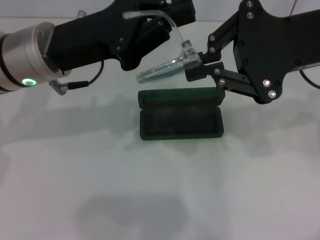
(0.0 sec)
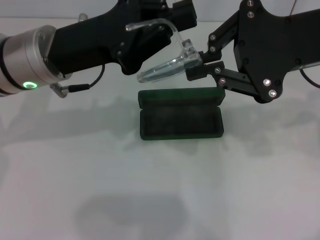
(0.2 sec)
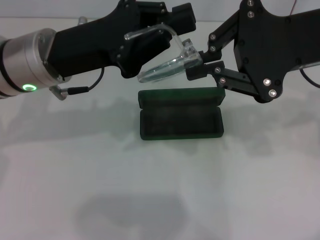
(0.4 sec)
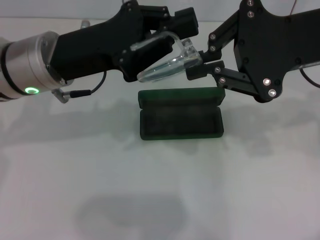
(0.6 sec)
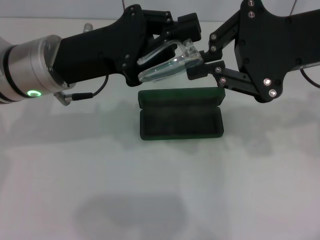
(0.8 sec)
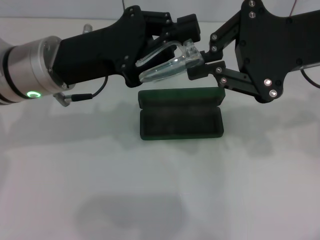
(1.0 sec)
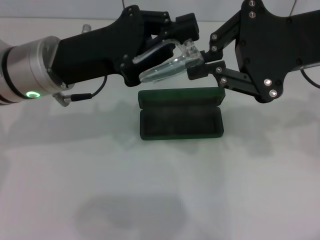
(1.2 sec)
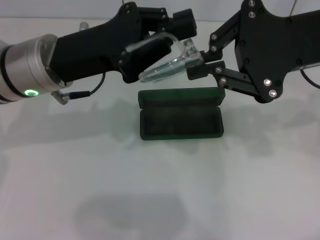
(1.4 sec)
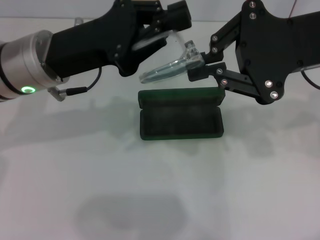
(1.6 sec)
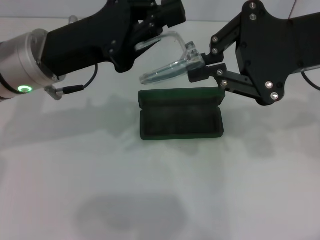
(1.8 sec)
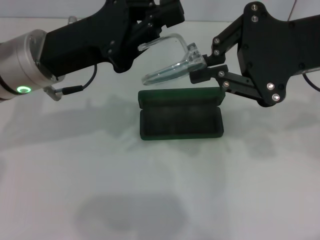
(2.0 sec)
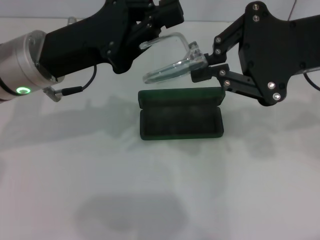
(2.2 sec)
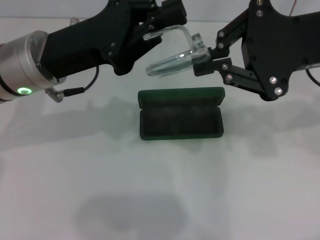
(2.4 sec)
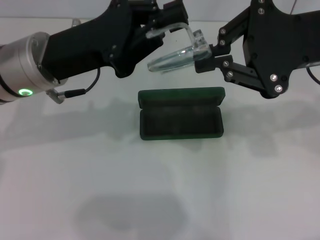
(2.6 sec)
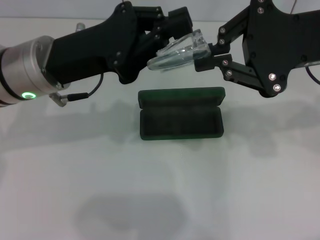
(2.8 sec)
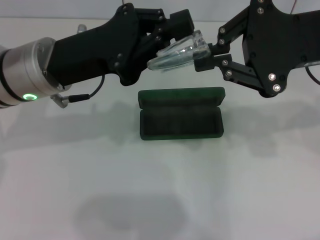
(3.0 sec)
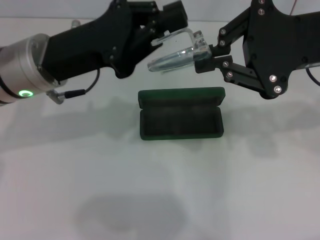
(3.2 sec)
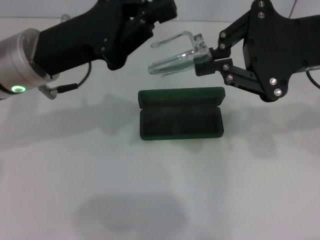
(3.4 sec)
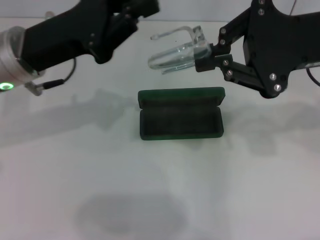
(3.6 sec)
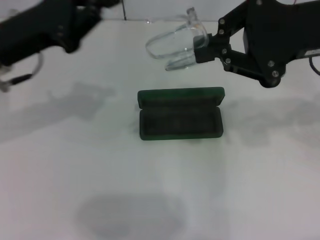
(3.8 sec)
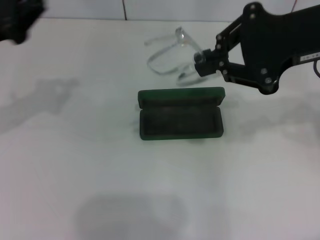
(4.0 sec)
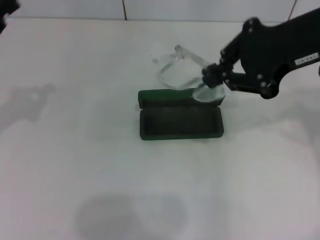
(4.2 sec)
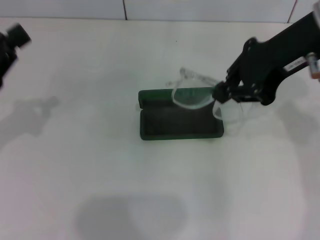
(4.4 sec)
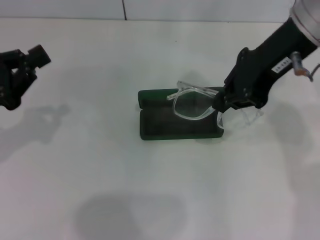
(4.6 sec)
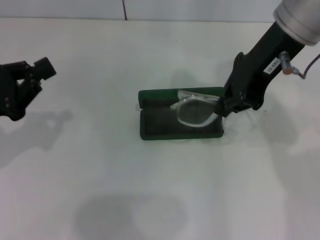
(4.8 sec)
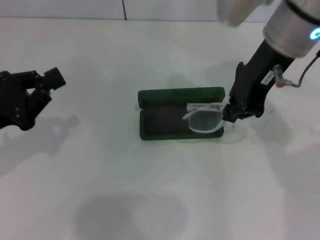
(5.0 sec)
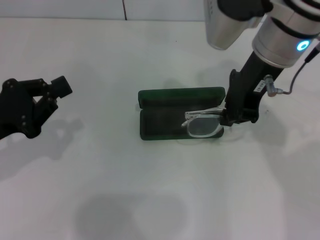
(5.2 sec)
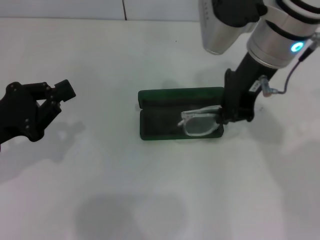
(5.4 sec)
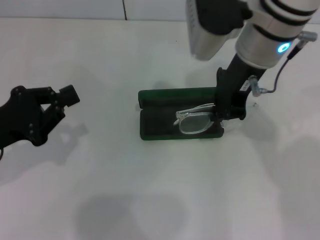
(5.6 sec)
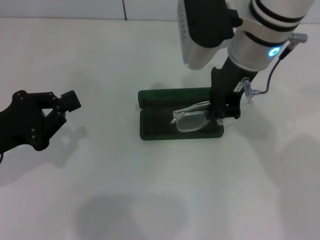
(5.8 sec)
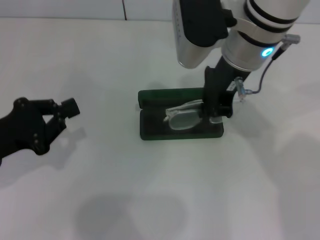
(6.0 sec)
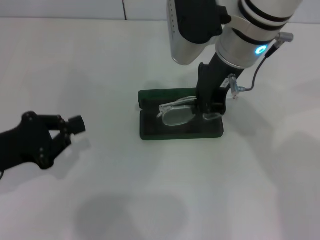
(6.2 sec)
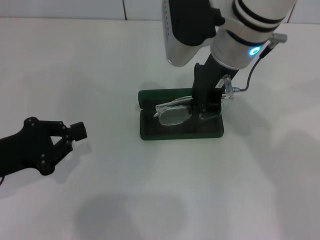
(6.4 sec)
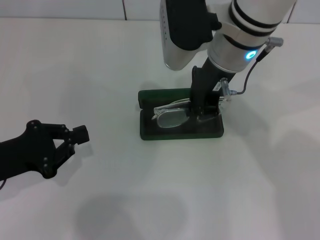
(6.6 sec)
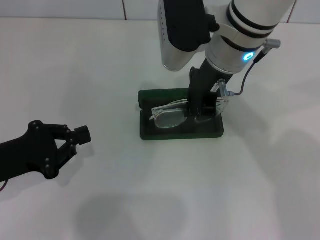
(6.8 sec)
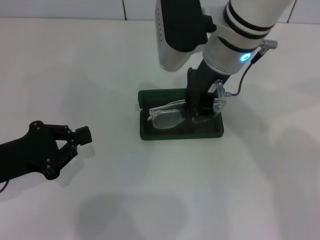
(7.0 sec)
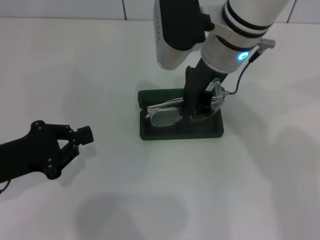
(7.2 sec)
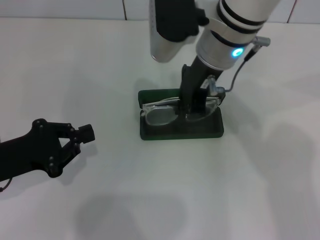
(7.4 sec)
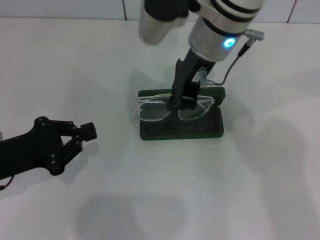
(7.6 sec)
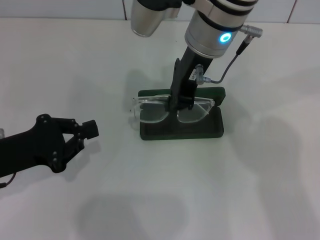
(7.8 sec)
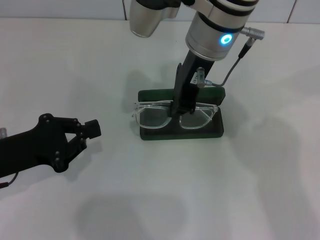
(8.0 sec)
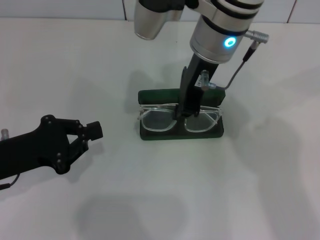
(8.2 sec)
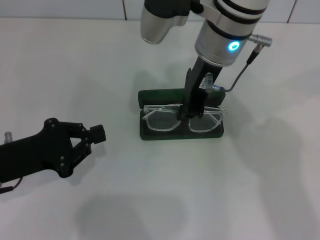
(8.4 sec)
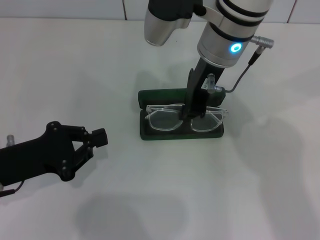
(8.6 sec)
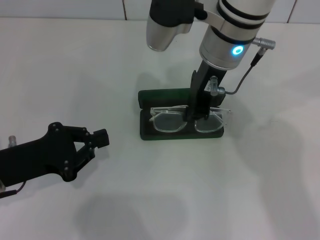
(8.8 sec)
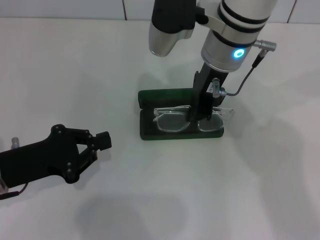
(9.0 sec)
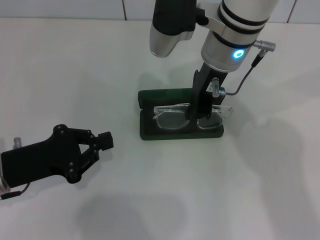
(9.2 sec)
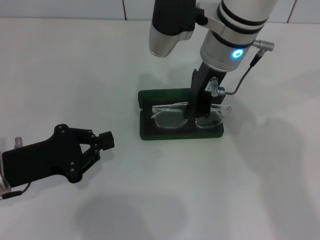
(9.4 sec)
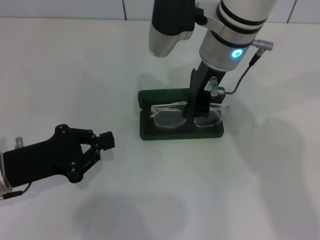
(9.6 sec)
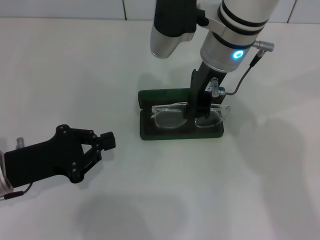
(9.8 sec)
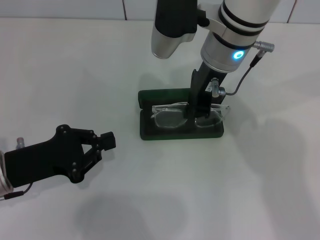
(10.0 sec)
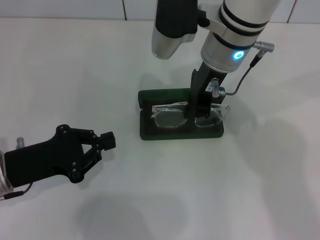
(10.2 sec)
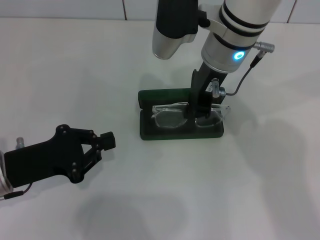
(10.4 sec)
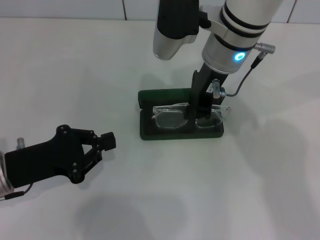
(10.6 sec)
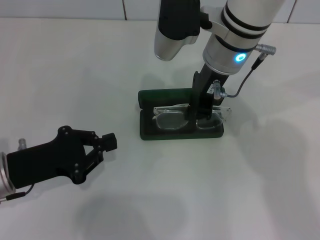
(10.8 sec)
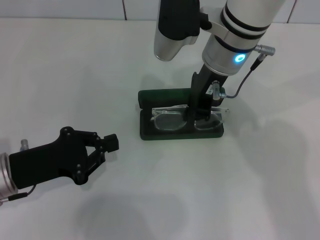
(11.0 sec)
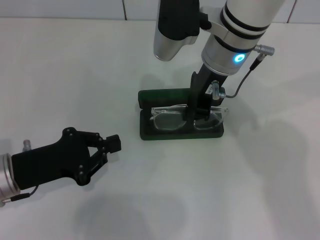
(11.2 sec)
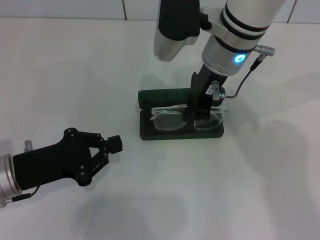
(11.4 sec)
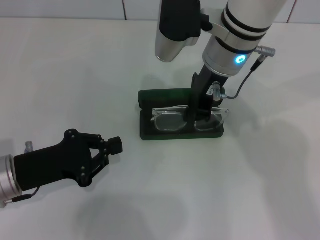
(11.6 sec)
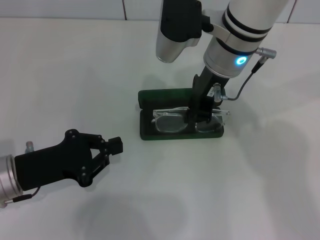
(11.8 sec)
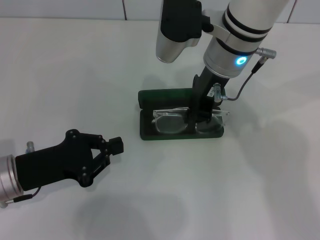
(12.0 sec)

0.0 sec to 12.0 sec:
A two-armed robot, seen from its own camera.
0.0 sec to 1.6 sec: Both grippers stay put.
1.6 sec to 3.0 sec: The two grippers keep their place.
3.0 sec to 4.4 sec: The left gripper moves to the left, some 15 cm.
4.4 sec to 6.0 sec: The right gripper travels to the left and downward by roughly 10 cm. Meanwhile the left gripper changes place by approximately 5 cm.
7.6 sec to 9.0 sec: The grippers stay close to where they were, moving slightly.
9.0 sec to 10.4 sec: Neither gripper changes place.
10.4 sec to 12.0 sec: Both grippers stay about where they are.

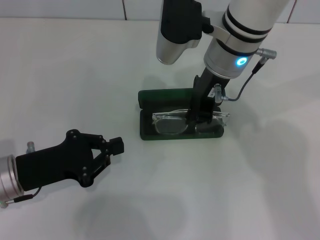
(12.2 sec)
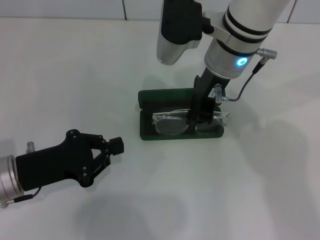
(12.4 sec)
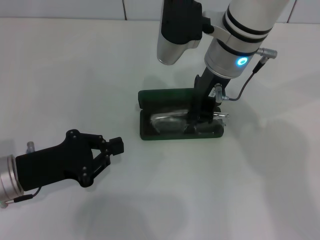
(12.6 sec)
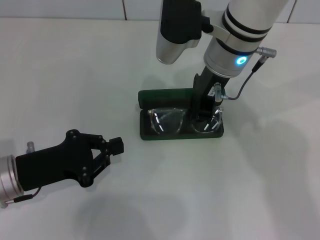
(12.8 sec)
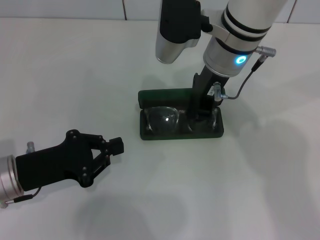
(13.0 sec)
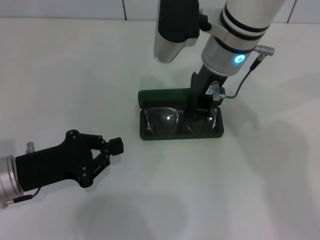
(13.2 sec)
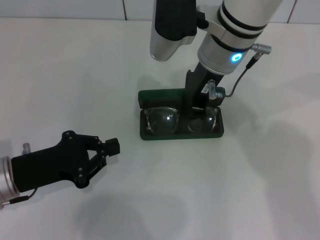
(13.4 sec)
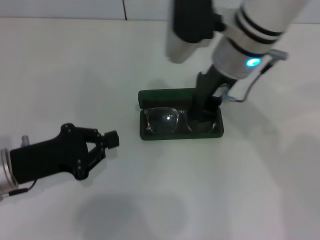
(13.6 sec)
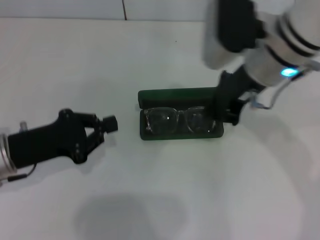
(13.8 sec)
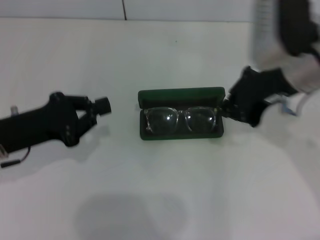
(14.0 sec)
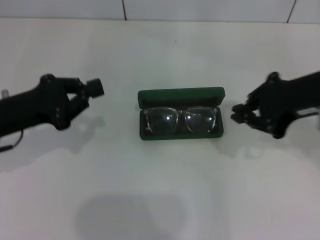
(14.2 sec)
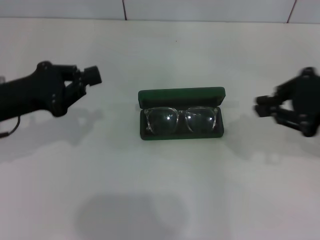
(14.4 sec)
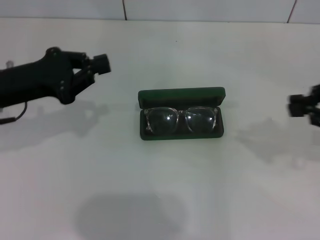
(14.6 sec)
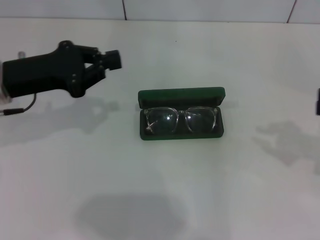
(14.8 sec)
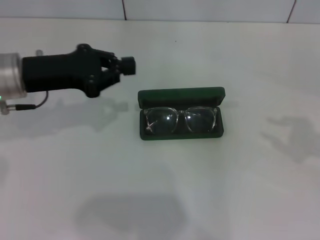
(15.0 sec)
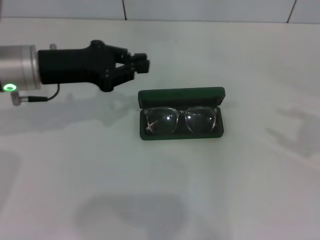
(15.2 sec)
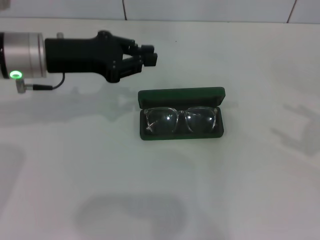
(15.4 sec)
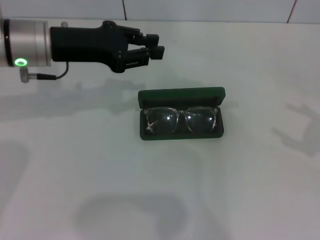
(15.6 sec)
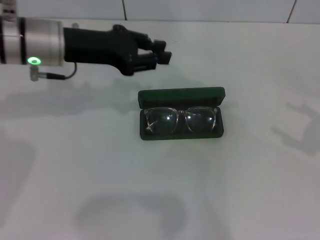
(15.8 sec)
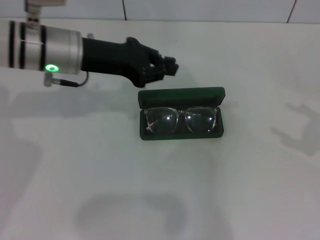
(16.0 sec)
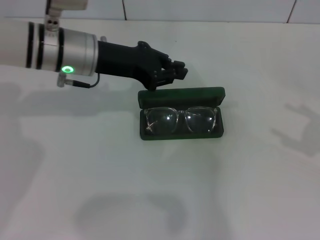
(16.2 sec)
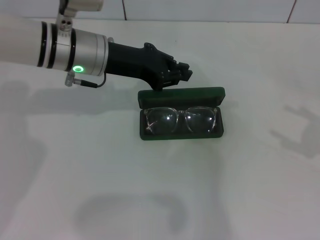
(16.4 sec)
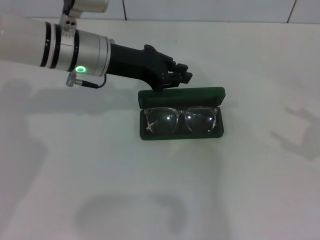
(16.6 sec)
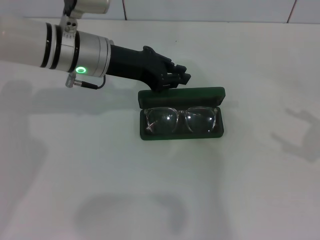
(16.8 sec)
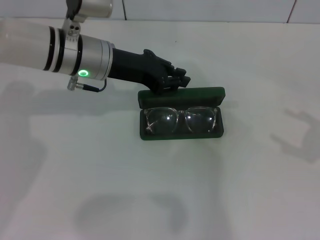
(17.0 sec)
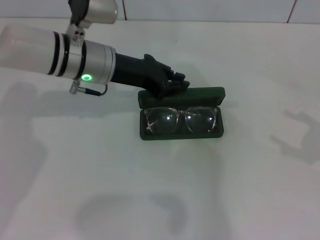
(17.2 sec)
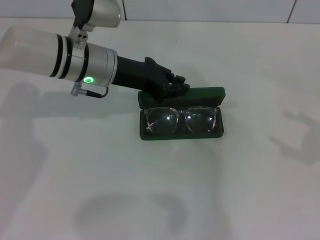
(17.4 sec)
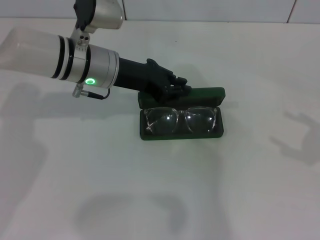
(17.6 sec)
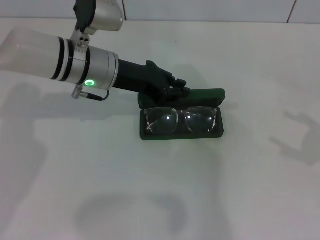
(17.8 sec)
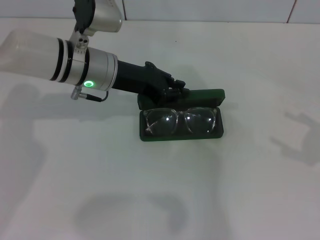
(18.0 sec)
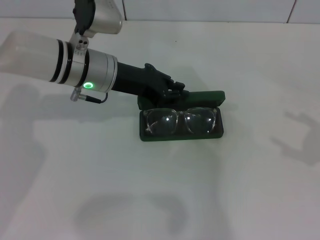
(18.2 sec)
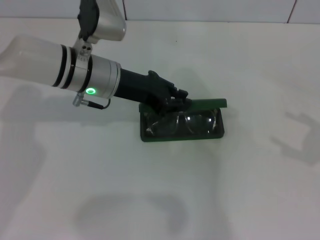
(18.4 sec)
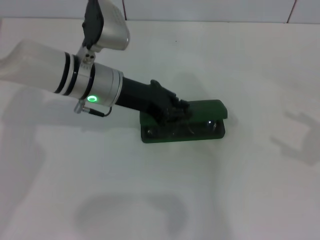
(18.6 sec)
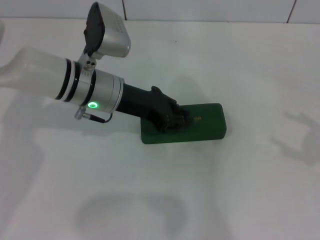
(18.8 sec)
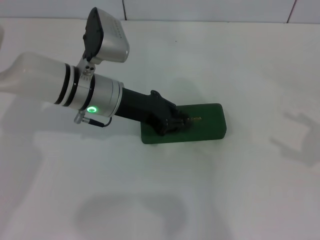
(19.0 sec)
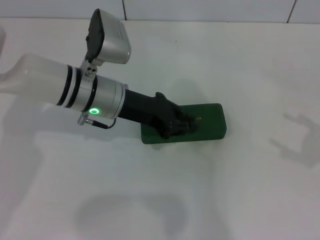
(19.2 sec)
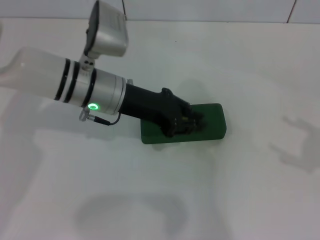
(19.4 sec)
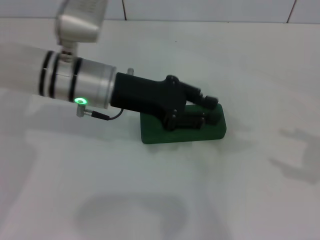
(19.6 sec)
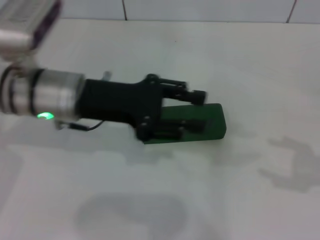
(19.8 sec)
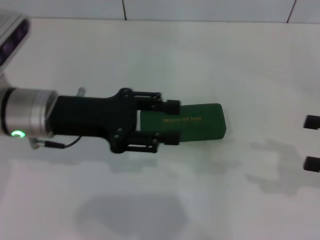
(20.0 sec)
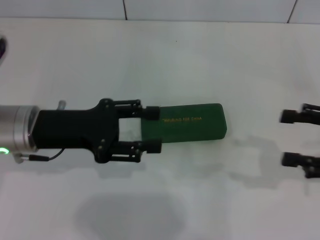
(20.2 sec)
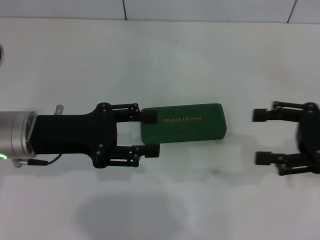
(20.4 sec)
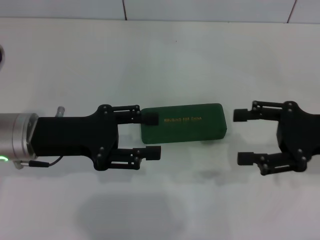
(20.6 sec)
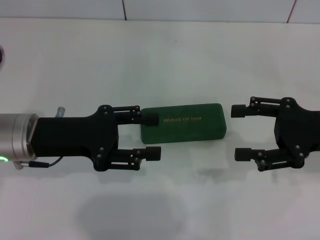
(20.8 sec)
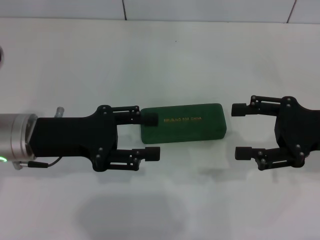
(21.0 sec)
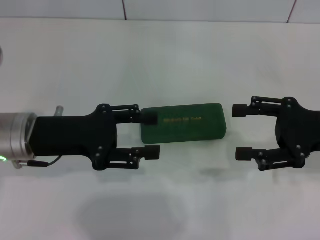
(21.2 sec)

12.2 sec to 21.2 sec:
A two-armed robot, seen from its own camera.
Step, 13.0 sec to 19.0 sec: Close the glasses case with your left hand.
12.2 sec to 13.8 sec: The right gripper shifts roughly 5 cm to the right.
13.8 sec to 15.2 sec: The right gripper shifts about 30 cm to the right and backward, and opens up; the left gripper goes some 10 cm forward and upward.
15.2 sec to 16.6 sec: The right gripper opens its fingers; the left gripper goes about 10 cm to the right.
16.6 sec to 18.2 sec: The grippers move only a little.
18.2 sec to 19.8 sec: The left gripper goes about 5 cm backward.
19.8 sec to 21.2 sec: The right gripper goes roughly 10 cm to the left and forward, while the left gripper travels to the left by some 5 cm, and opens.
